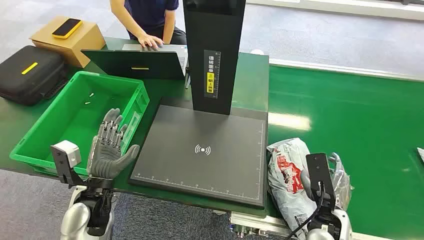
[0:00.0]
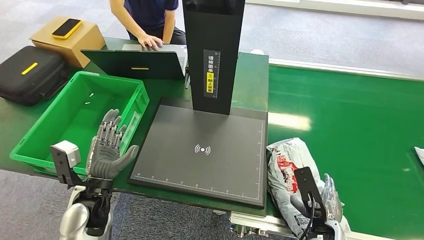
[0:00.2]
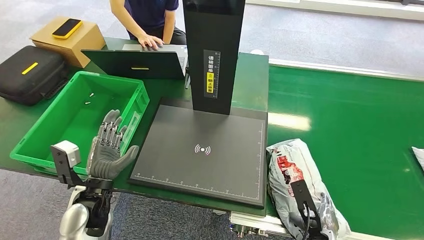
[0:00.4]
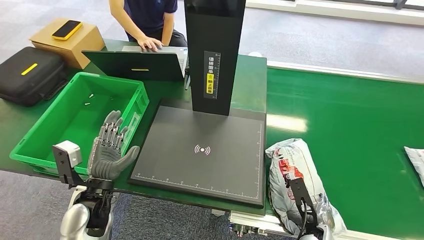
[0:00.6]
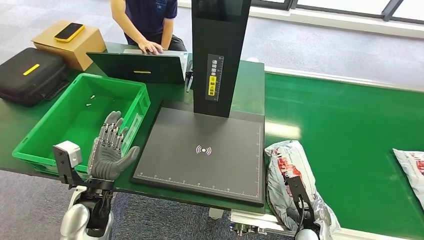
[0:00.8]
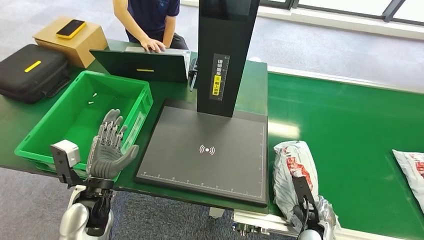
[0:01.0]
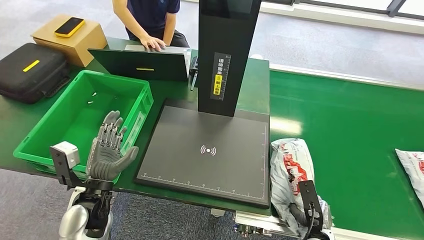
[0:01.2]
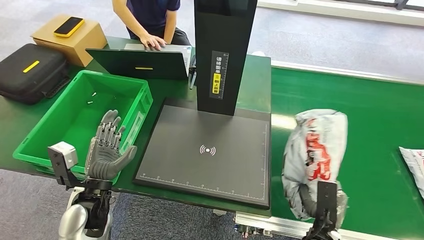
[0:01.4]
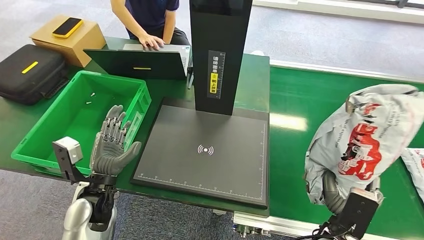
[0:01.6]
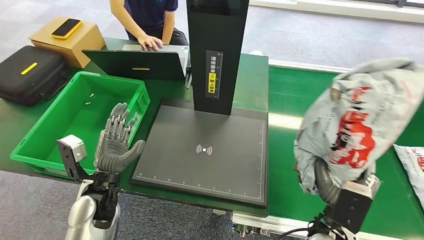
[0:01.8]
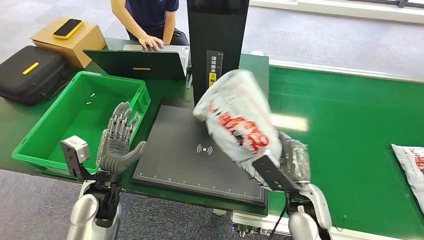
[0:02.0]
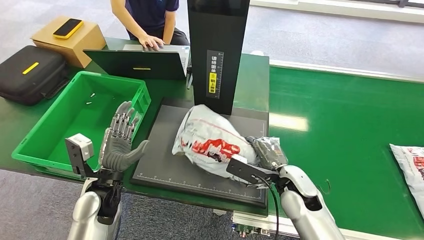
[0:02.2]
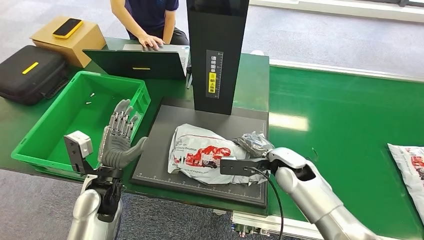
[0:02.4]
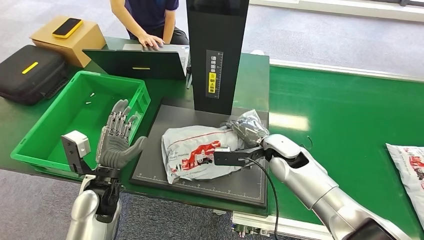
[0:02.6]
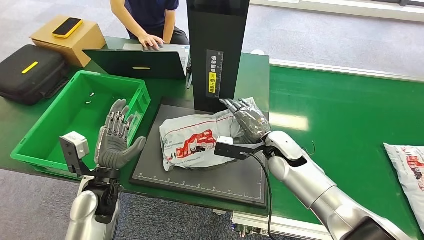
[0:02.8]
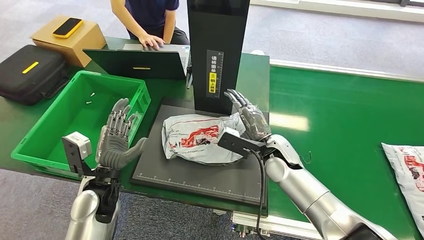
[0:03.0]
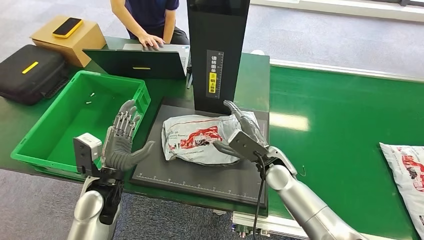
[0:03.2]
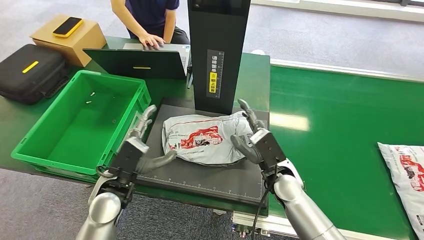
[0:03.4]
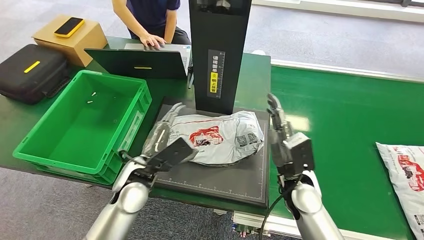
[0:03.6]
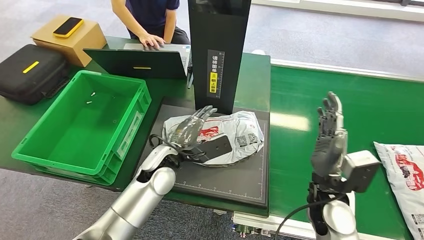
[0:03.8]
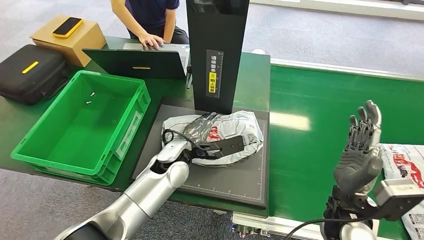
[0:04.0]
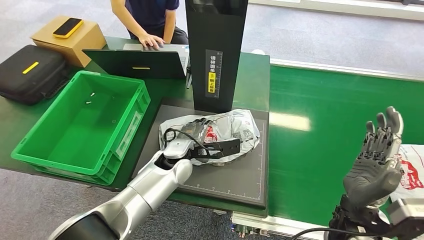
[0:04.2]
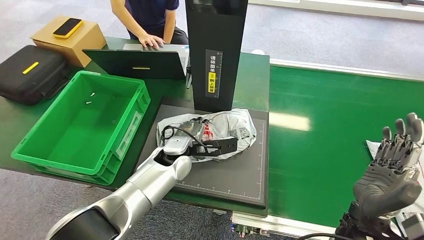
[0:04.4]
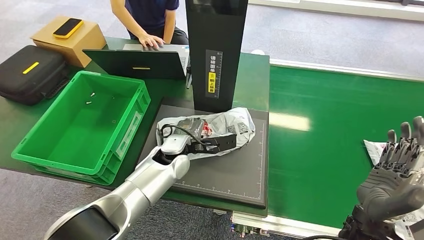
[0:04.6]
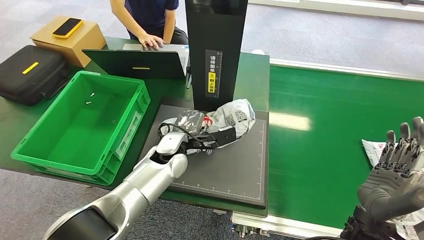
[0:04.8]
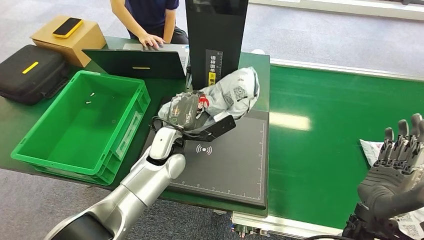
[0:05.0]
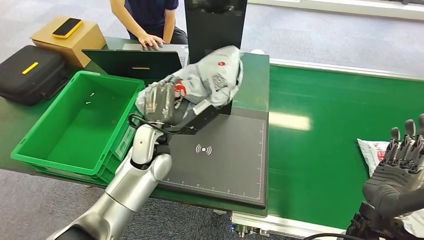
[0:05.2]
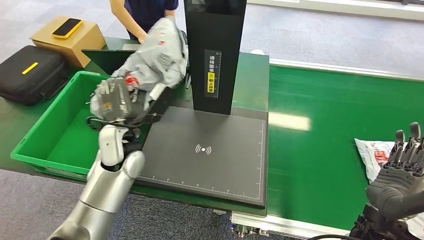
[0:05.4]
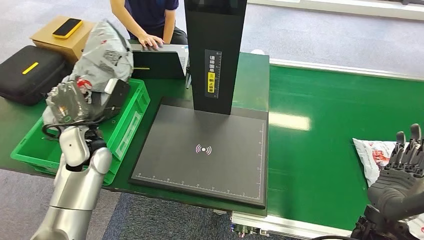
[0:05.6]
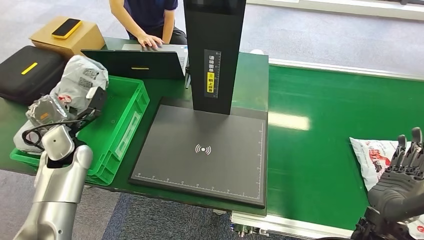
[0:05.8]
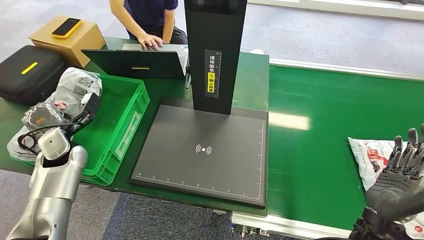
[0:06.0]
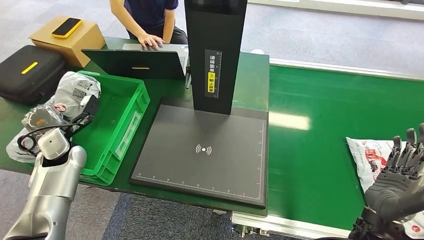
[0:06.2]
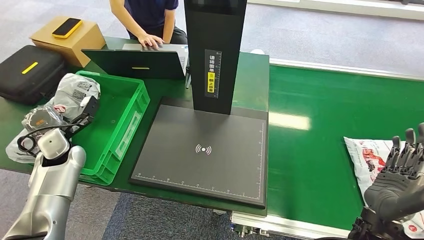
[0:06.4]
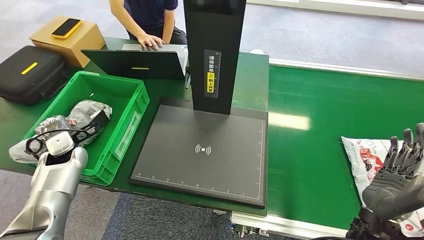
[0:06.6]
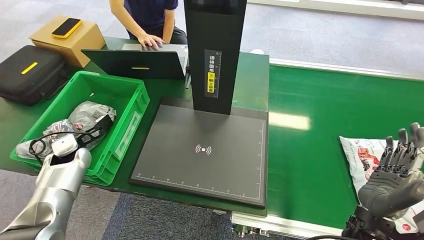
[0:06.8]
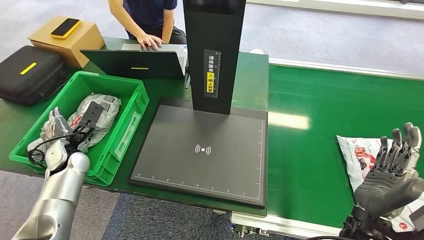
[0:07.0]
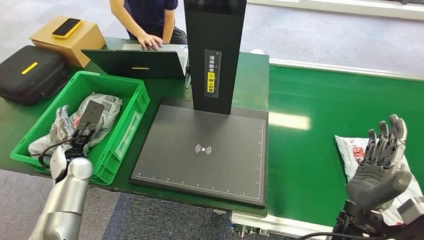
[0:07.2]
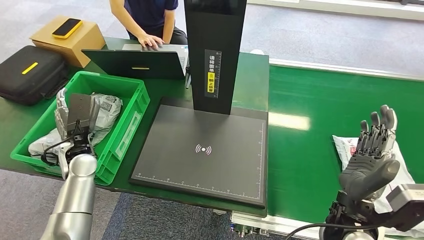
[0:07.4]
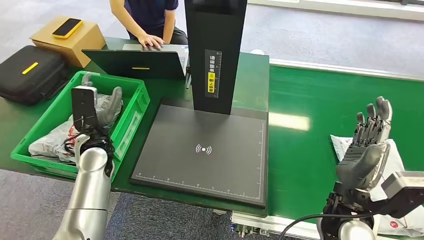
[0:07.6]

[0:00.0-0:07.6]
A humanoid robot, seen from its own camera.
Step, 0:00.0 to 0:01.8: Pick up the package from the conveyor belt.
Step, 0:02.0 to 0:03.4: Place the package onto the inbound machine.
Step, 0:03.6 to 0:05.4: Pick up the package from the inbound machine.
Step, 0:05.6 to 0:07.4: Place the package into the parcel locker.

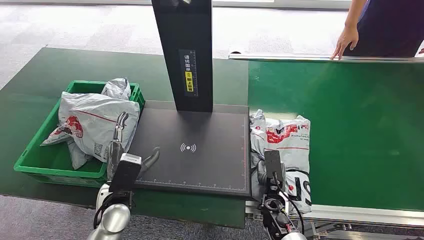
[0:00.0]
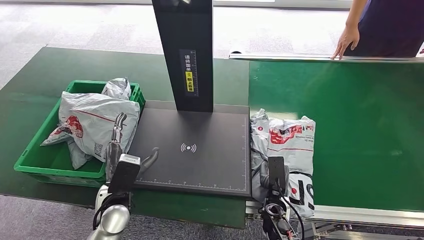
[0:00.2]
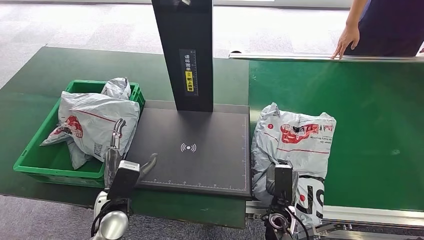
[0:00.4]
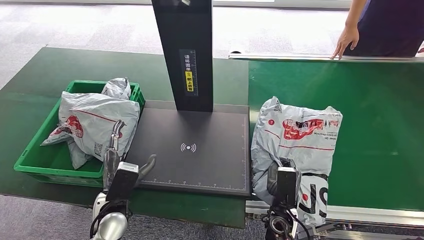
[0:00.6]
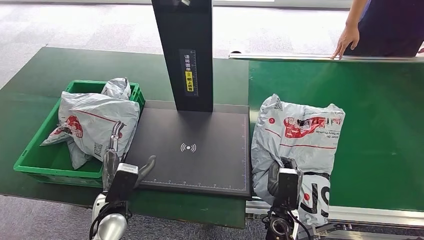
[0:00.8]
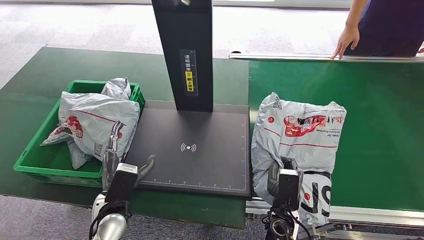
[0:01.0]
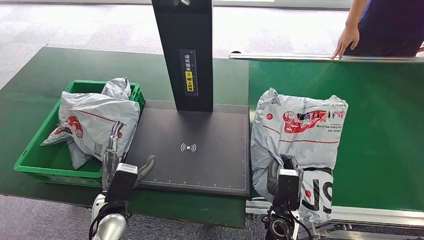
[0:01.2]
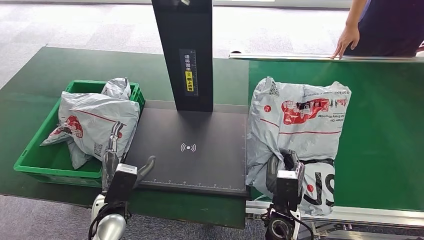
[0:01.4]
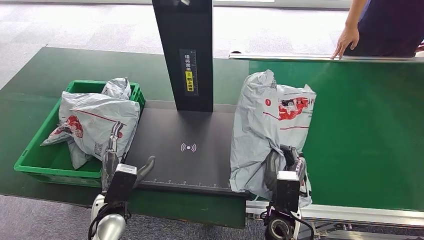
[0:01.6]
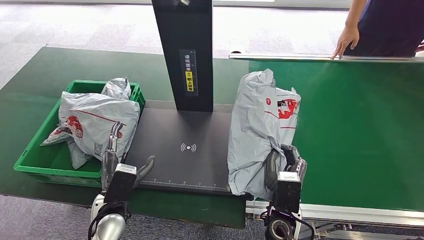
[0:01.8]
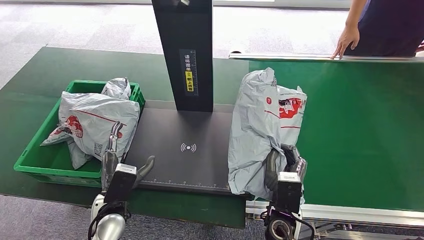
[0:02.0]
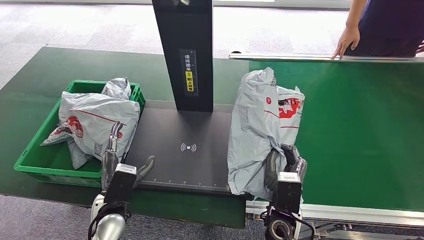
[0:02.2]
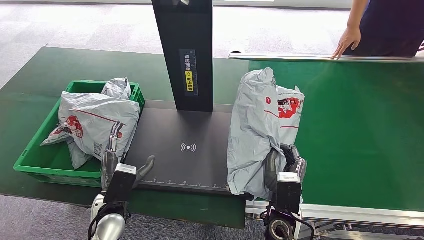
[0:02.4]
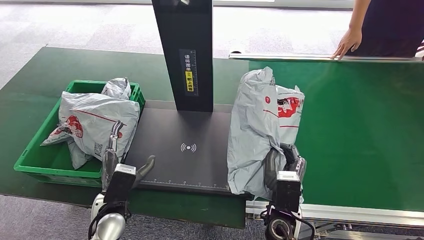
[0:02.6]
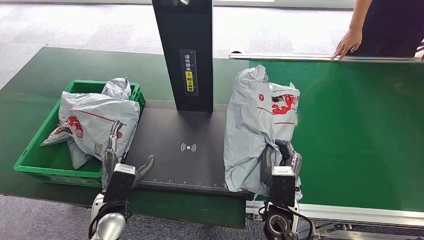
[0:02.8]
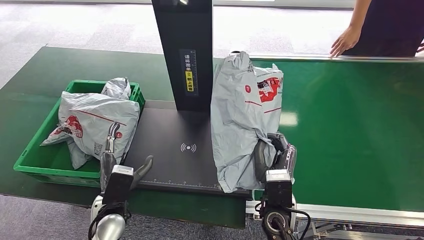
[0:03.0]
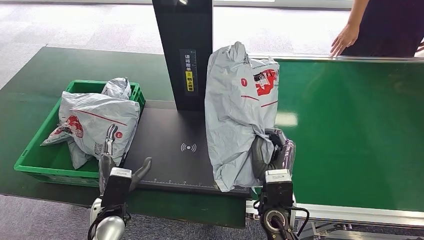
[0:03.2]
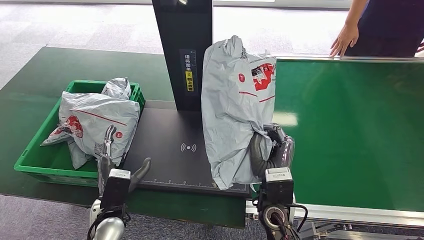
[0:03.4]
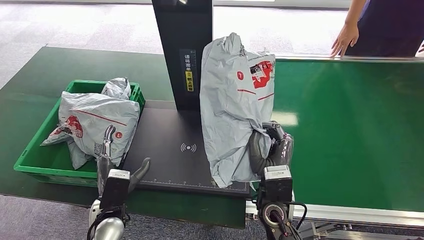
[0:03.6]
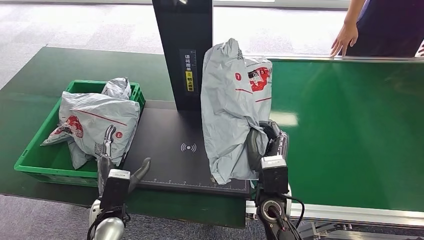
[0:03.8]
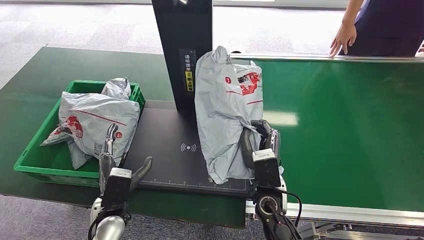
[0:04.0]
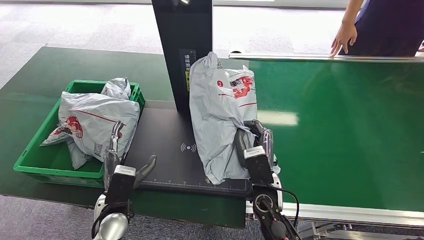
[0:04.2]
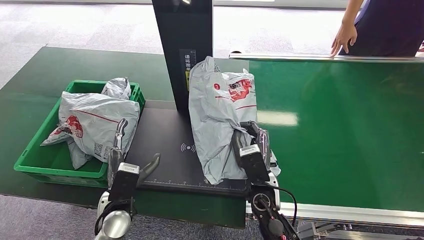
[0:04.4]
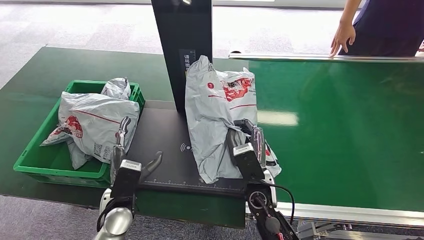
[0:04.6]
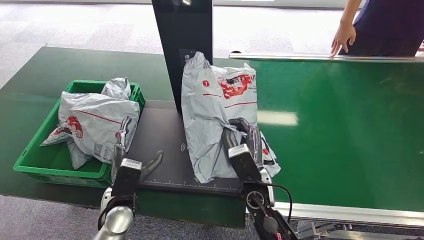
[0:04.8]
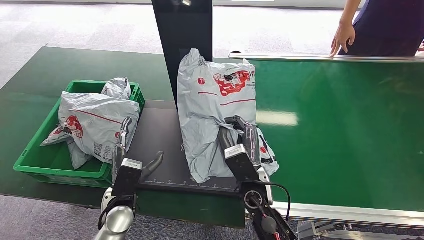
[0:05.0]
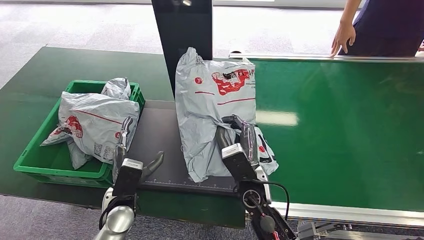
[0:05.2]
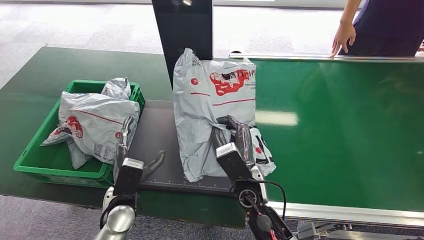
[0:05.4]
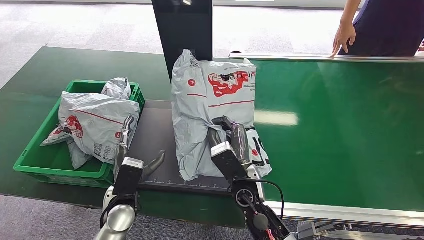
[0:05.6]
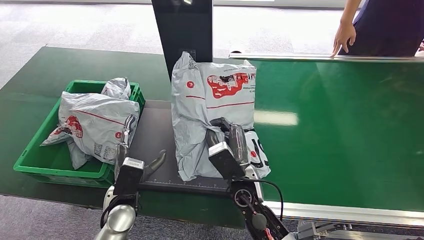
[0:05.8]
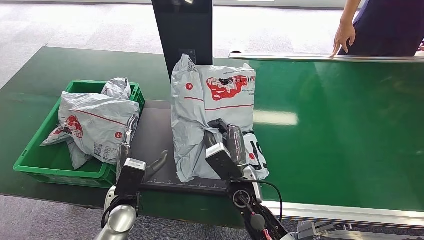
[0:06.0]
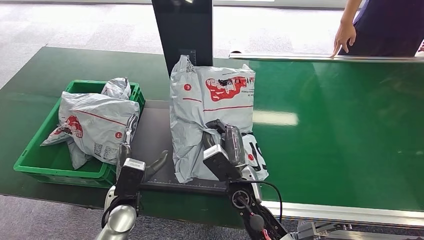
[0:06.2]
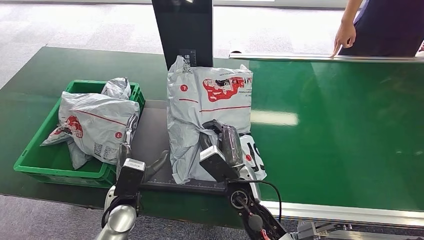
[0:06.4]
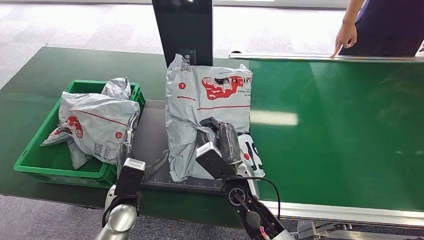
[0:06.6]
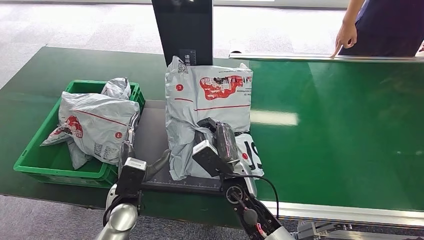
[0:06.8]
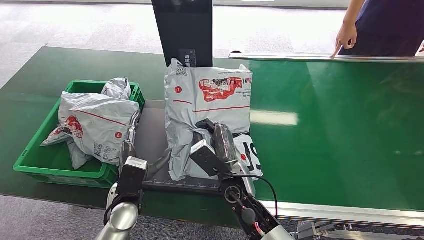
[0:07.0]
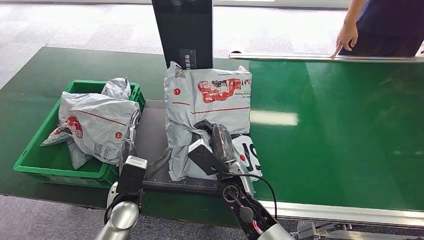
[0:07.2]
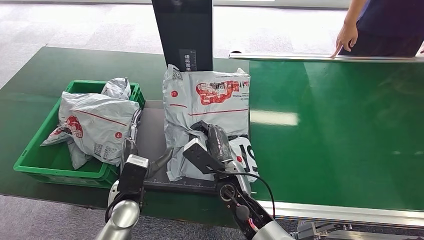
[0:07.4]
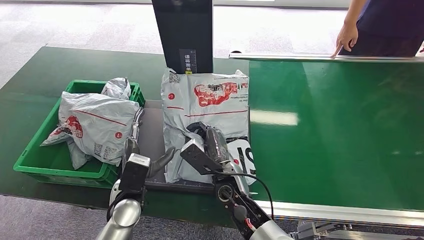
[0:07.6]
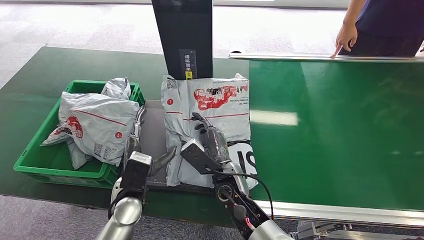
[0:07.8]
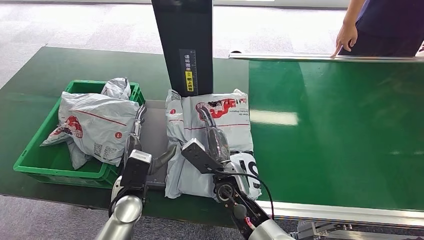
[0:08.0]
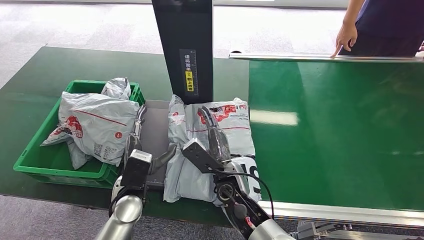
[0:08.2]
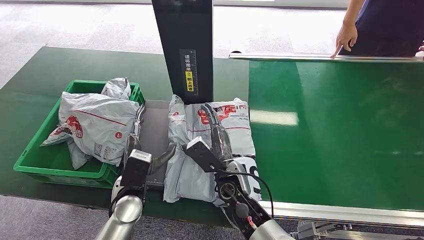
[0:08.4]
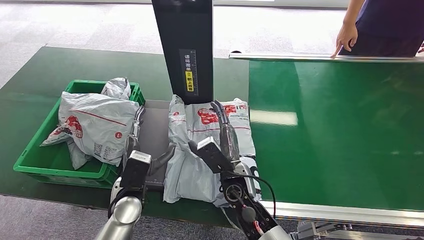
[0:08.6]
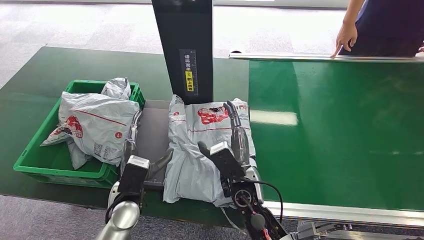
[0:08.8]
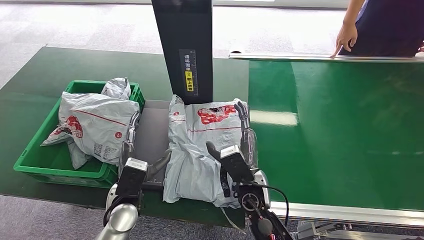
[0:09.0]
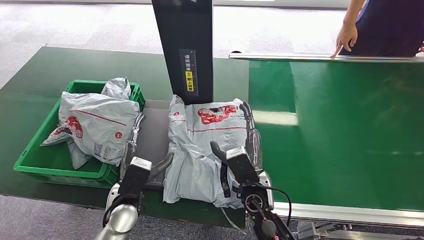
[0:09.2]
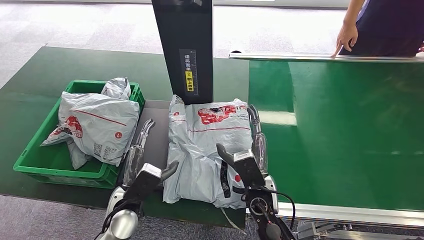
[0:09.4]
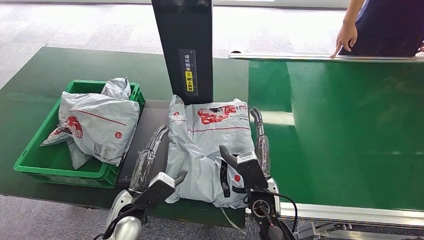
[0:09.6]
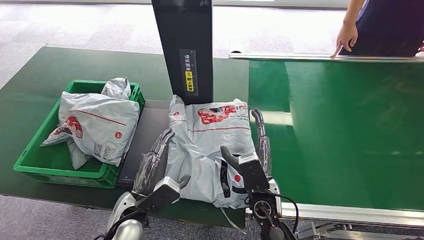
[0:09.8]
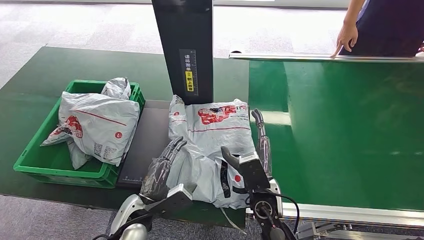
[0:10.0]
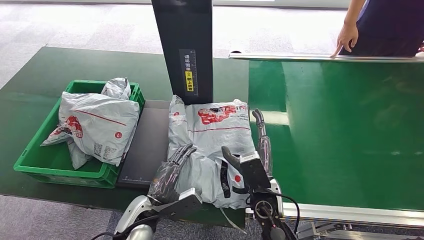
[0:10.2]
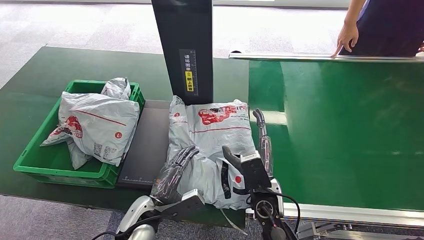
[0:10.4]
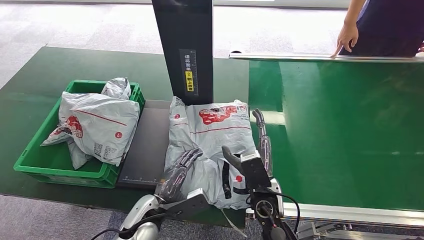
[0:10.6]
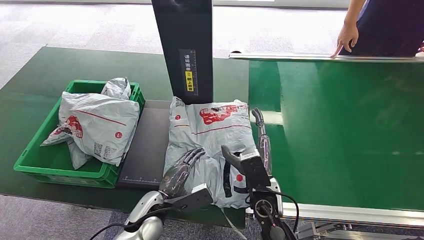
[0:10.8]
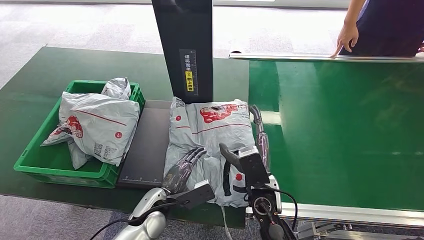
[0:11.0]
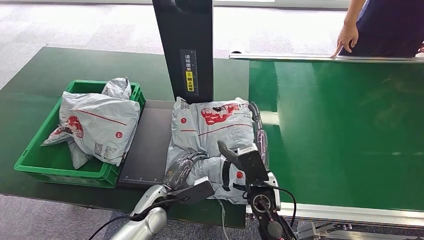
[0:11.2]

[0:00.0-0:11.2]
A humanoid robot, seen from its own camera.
Step, 0:00.0 to 0:01.8: Pick up the package from the conveyor belt.
Step, 0:02.0 to 0:10.2: Place the package onto the inbound machine.
0:01.6 to 0:03.2: The right hand changes place by some 5 cm.
0:03.2 to 0:04.8: The right hand ends up approximately 5 cm from where it was.
0:04.8 to 0:06.4: The hands make only small movements.
0:06.4 to 0:08.0: The hands make only small movements.
0:08.0 to 0:09.6: The right hand shifts some 5 cm to the right.
0:09.6 to 0:11.2: The left hand is displaced downward by roughly 5 cm.
